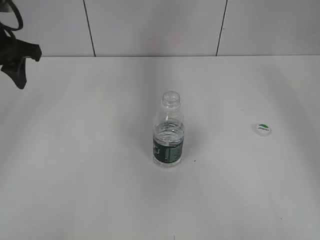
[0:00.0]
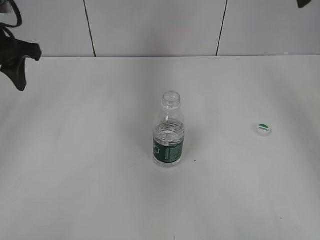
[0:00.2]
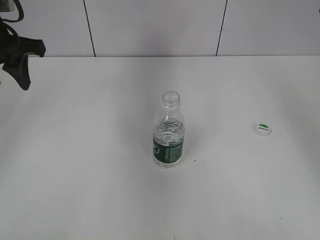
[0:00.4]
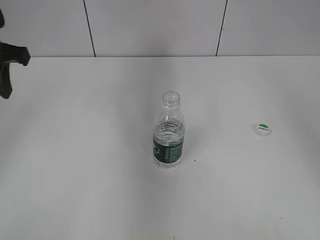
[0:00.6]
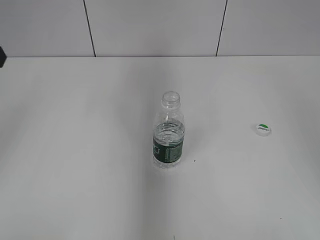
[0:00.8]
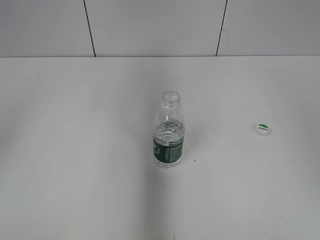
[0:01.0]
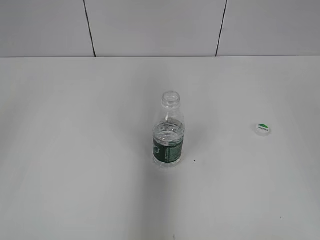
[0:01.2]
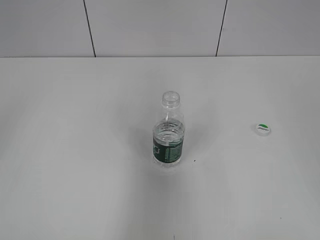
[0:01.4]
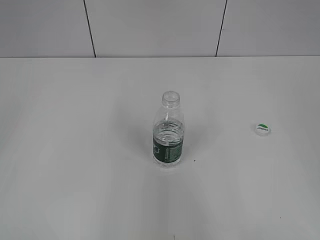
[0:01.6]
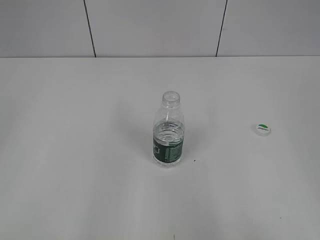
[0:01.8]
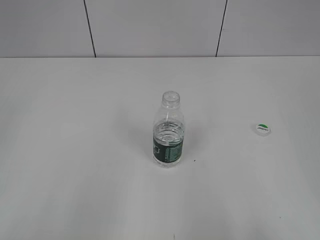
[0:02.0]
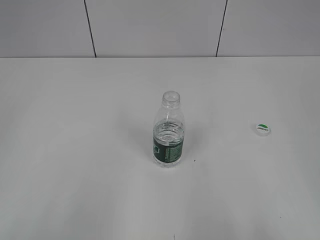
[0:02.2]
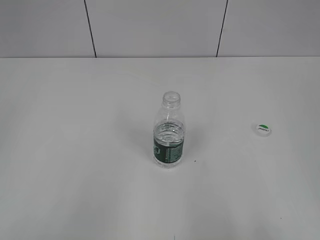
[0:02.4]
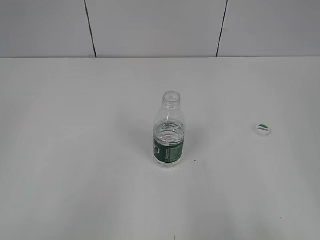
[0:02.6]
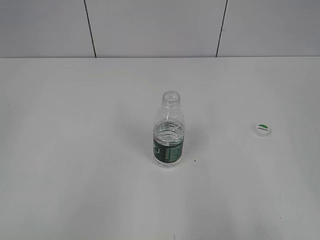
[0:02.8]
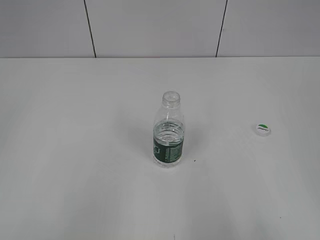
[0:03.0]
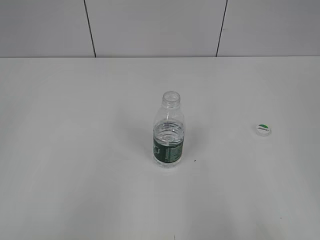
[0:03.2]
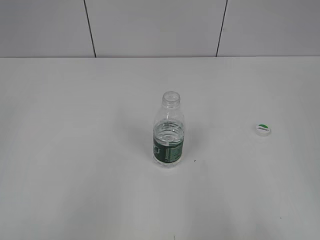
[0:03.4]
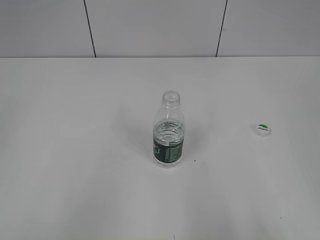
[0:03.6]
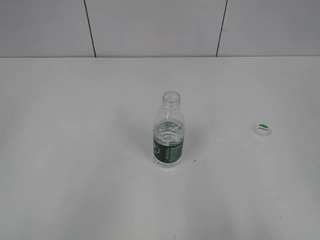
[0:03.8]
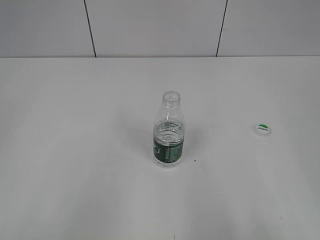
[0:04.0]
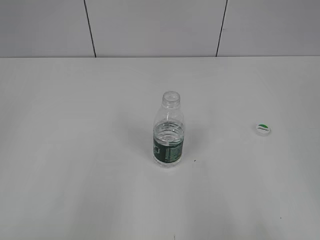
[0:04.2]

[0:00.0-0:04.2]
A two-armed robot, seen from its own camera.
0:00.0 to 0:01.4: The grippers both shift backward by some 30 cm. The left gripper closes.
0:01.4 to 0:02.8: The right gripper travels downward and backward by approximately 10 cm, while the left gripper goes roughly 15 cm backward and downward.

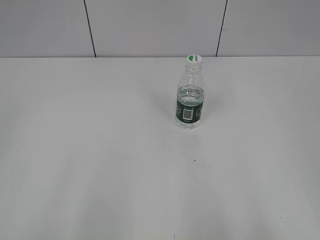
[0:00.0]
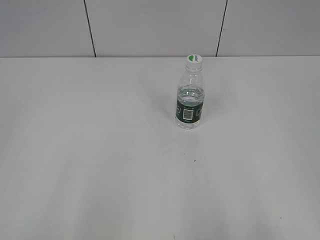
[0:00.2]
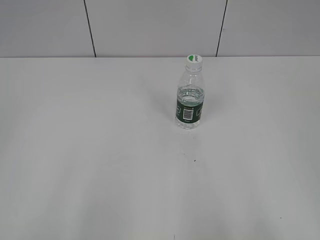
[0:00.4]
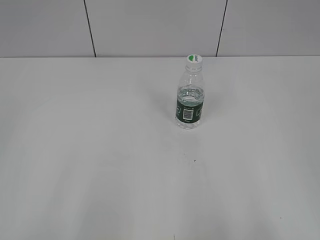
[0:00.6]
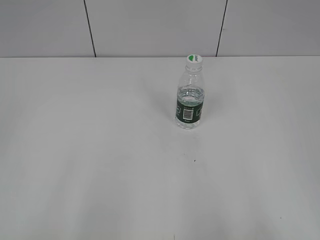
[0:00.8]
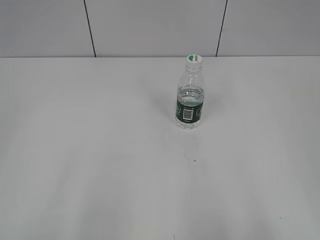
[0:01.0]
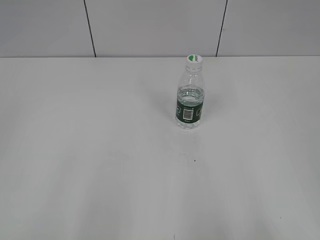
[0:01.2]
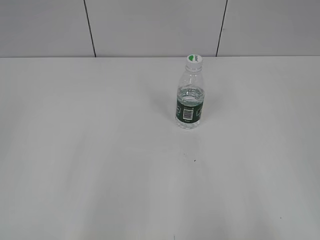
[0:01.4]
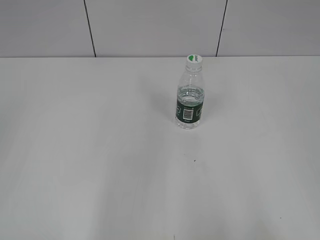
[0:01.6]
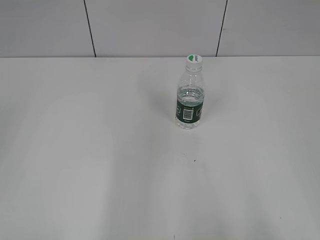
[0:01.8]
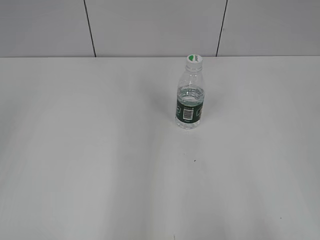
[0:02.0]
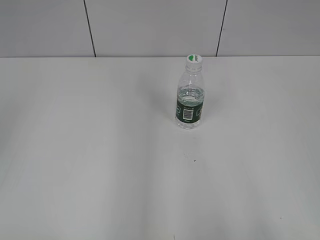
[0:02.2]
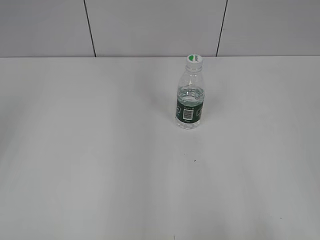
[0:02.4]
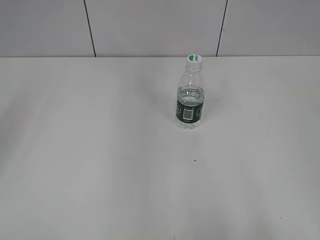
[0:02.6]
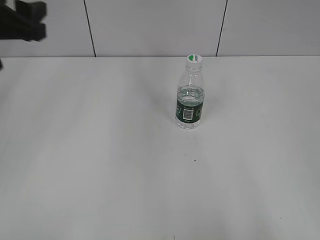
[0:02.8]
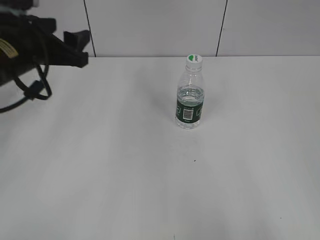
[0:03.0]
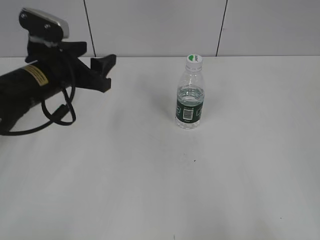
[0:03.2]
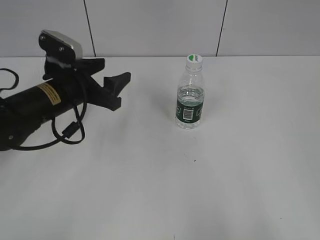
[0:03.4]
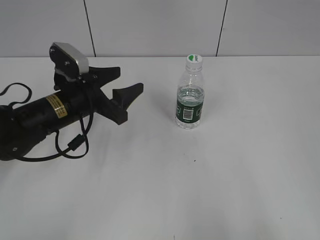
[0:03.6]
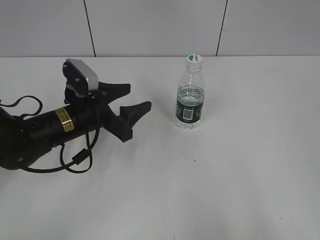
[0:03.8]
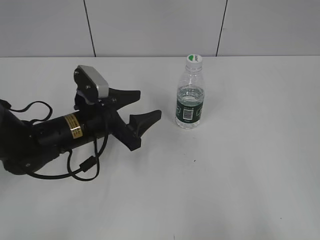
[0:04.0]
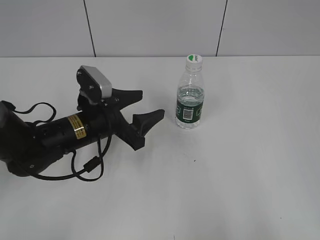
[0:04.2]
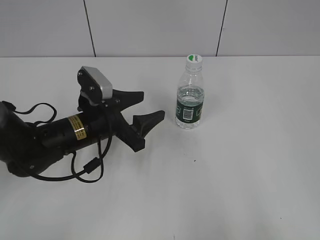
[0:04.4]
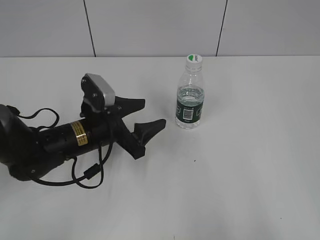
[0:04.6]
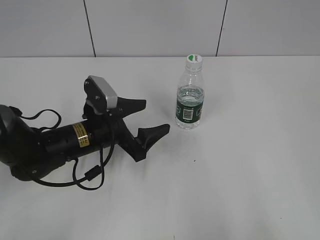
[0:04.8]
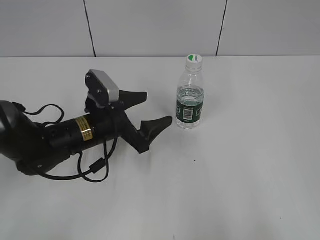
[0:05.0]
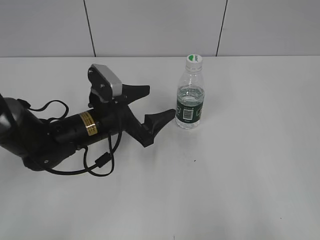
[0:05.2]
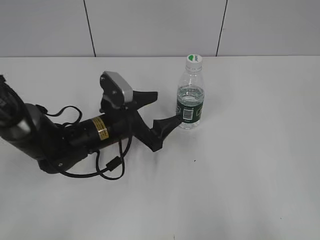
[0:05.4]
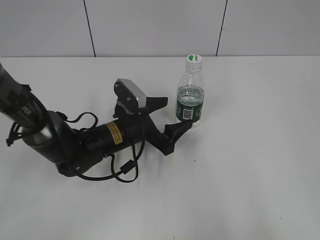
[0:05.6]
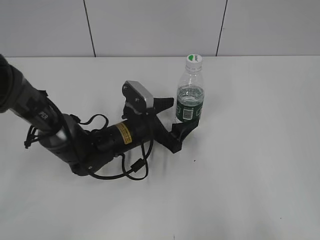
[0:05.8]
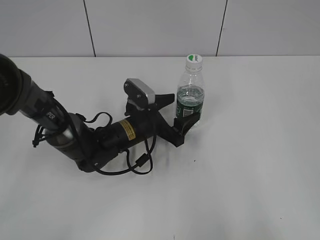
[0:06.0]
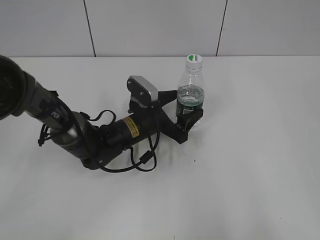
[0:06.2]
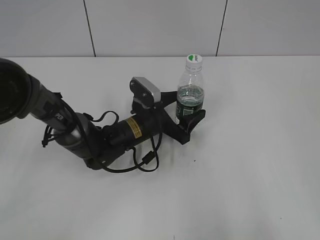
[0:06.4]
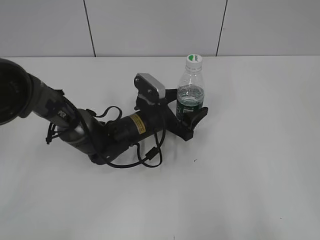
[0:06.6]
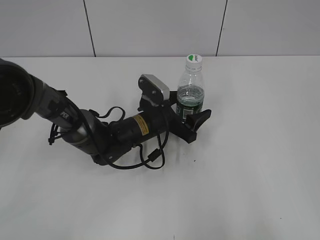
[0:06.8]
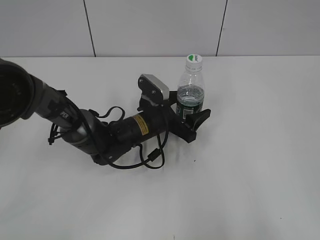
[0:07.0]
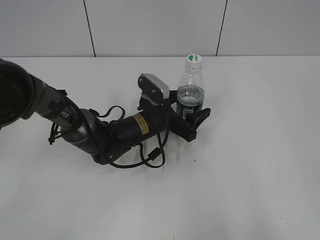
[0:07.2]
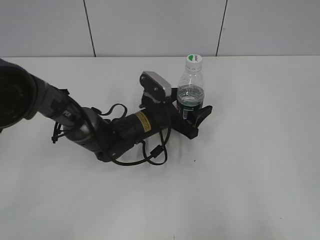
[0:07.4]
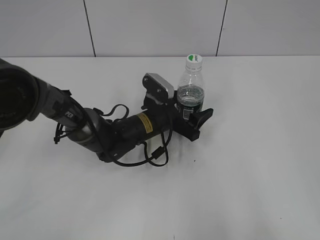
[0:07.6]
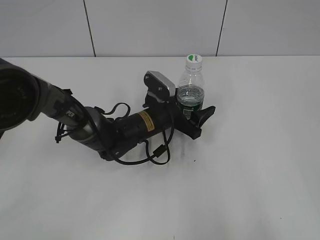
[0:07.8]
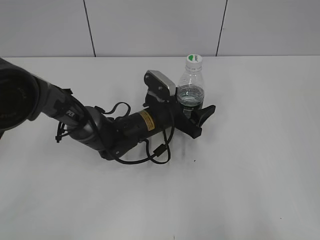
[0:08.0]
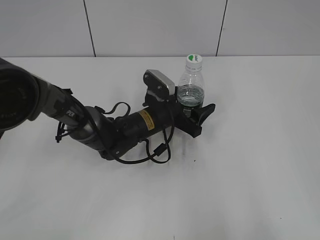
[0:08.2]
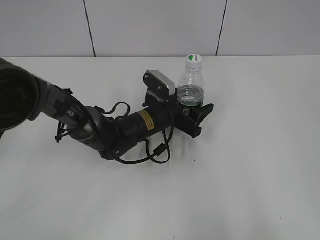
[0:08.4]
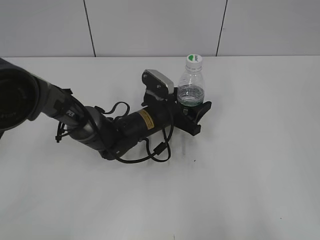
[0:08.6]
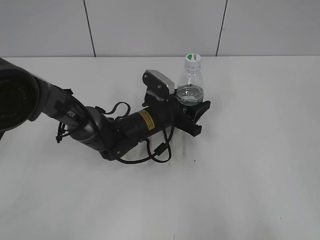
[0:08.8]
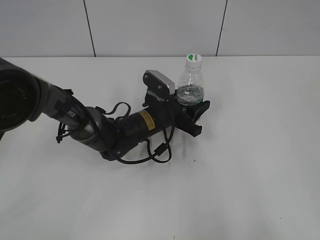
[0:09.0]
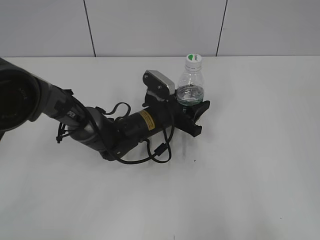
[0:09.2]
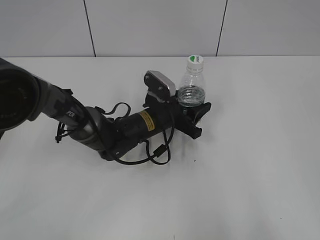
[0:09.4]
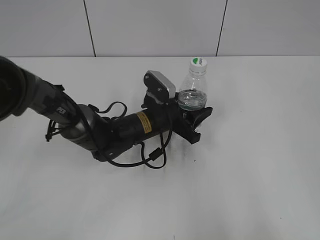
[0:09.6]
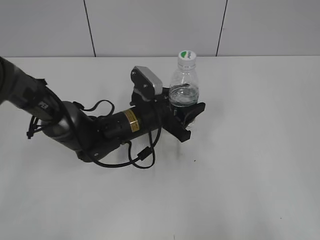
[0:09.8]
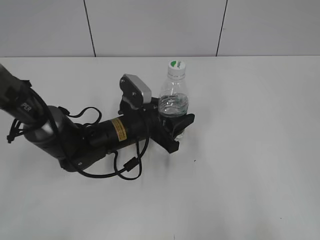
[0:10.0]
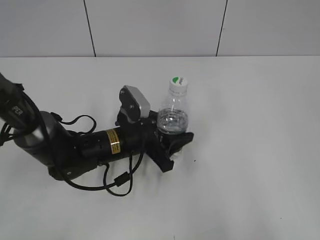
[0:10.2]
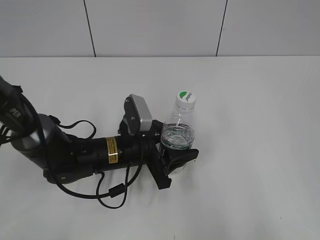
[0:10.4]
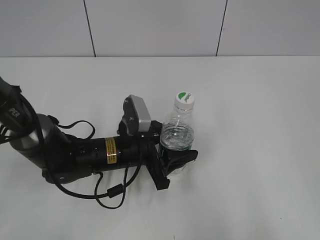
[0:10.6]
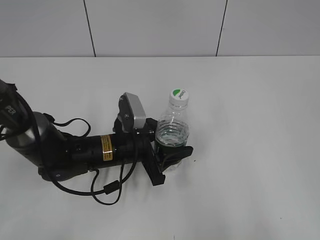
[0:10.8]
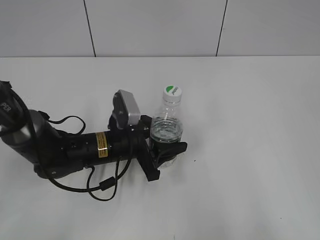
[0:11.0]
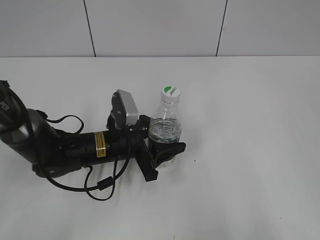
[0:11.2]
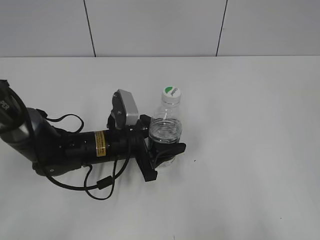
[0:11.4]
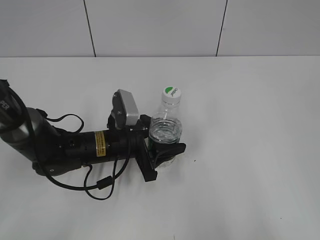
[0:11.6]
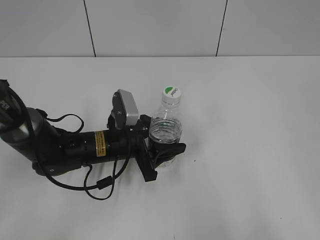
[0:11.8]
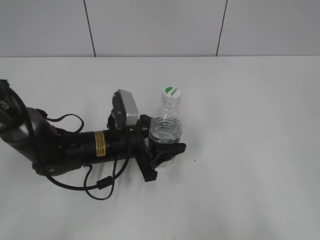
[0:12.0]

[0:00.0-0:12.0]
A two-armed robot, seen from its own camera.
Step, 0:00.0 to 0:09.2: Grasp the bottle and move it to the center of the table with the left gripper.
0:01.6 to 0:03.0: The left gripper moves forward, approximately 30 cm.
0:03.0 to 0:04.4: The left gripper is displaced downward and to the right by approximately 15 cm.
0:04.4 to 0:06.0: The left gripper moves to the right and downward, some 10 cm, and opens up.
0:06.0 to 0:07.6: There are only small adjustments of the grippers.
0:07.6 to 0:09.0: The left gripper closes.
0:09.0 to 0:10.4: The left gripper heads backward and to the left, covering some 10 cm.
0:10.4 to 0:12.0: The grippers move only a little.

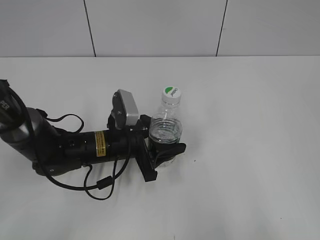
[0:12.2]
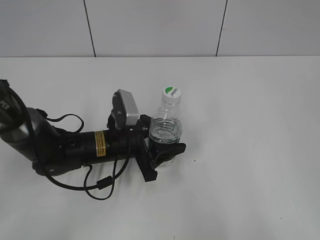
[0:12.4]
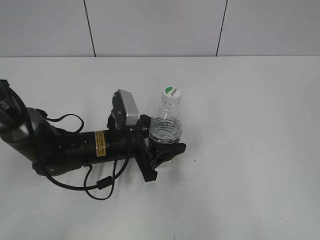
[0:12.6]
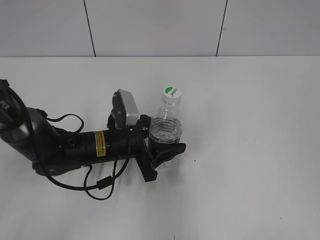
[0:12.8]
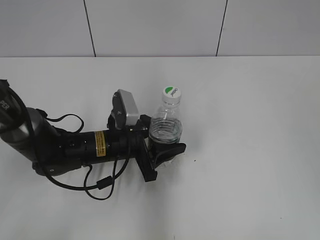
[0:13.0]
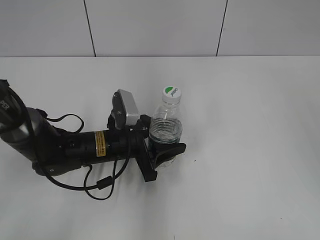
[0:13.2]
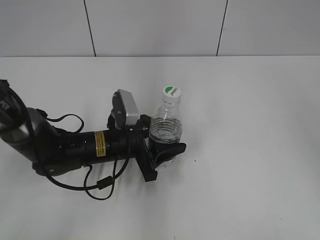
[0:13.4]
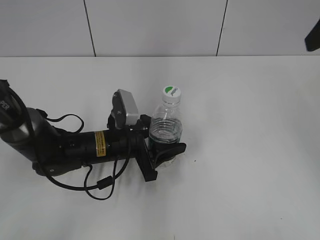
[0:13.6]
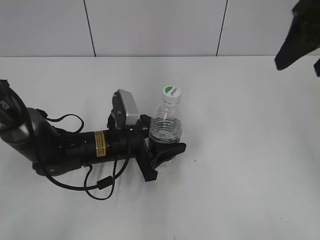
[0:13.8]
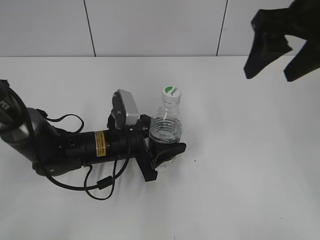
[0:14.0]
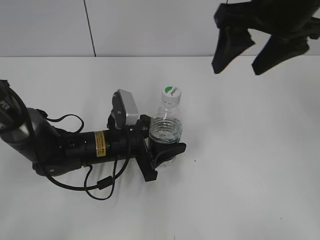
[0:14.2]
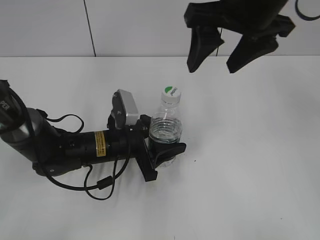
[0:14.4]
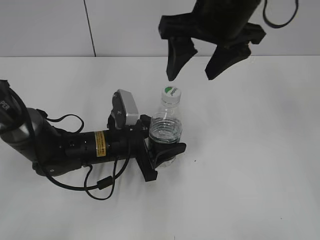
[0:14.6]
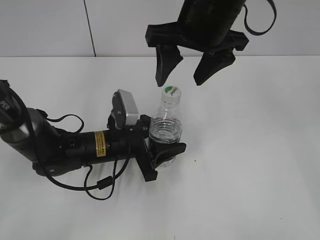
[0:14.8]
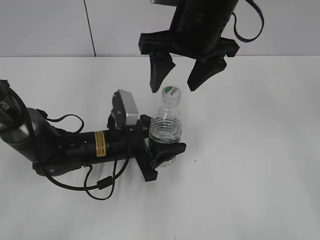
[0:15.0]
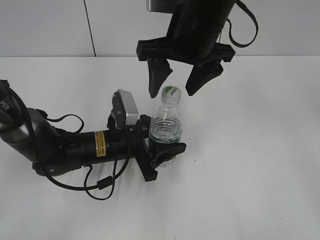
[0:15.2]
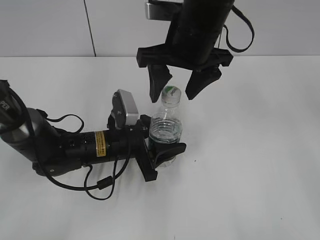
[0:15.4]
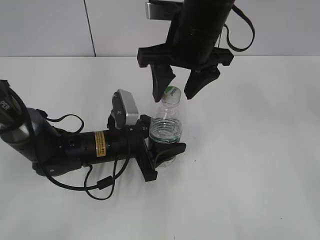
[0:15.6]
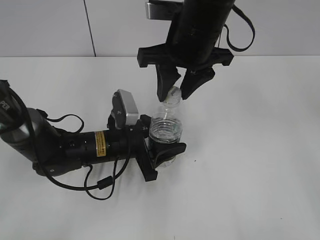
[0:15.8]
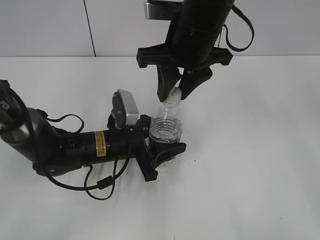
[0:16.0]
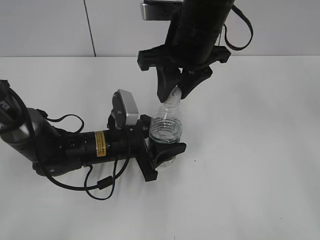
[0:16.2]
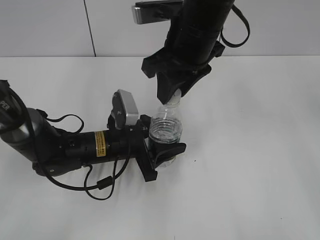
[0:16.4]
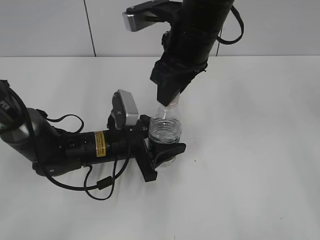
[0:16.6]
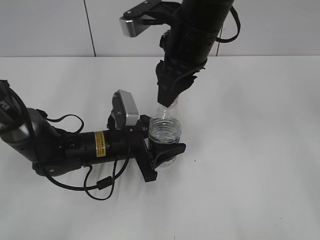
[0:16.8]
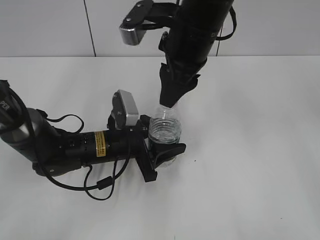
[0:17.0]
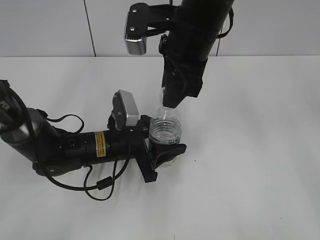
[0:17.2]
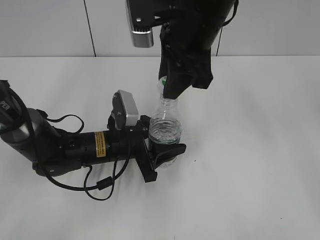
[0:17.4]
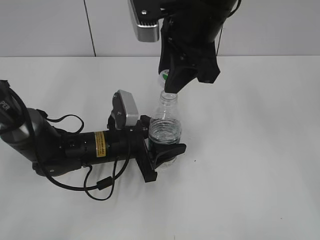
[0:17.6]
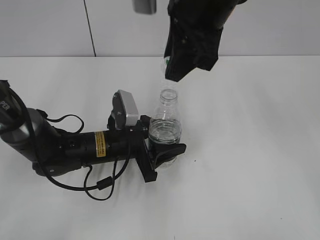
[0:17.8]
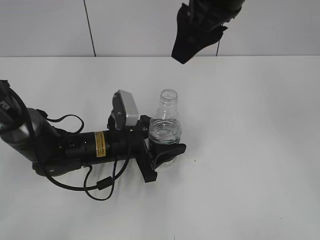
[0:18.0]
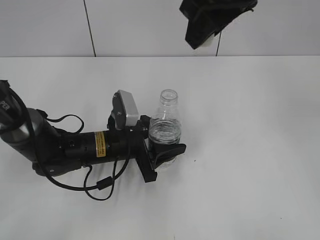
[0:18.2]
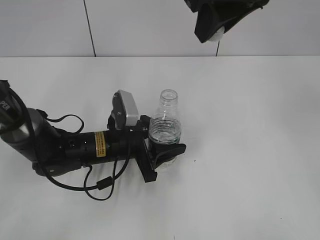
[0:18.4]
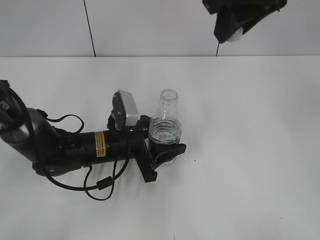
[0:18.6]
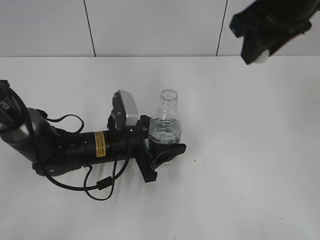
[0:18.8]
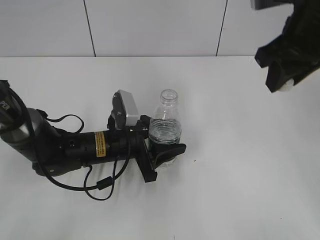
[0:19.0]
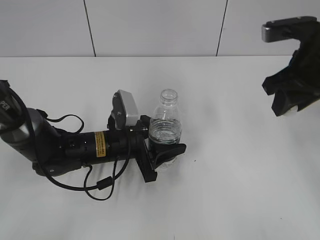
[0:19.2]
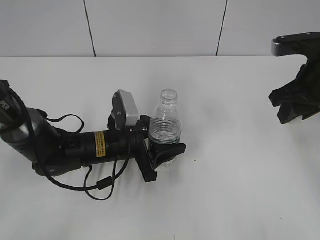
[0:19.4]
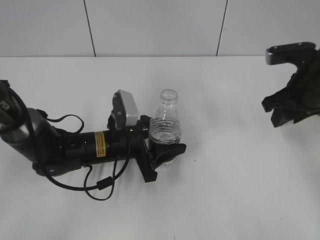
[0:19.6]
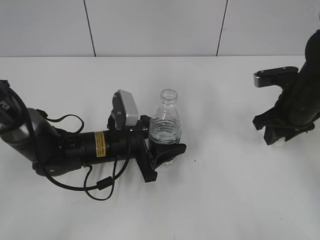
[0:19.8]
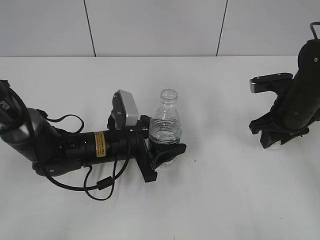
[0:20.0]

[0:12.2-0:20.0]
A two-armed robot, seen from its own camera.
Step, 0:13.6 to 0:17.6: Unscrew the bottle cap with the right gripper while holding the bottle with the left gripper.
0:12.2 to 0:13.8: The right gripper shifts approximately 30 cm forward.
0:13.8 to 0:15.4: The right gripper shifts some 20 cm to the left.
0:15.4 to 0:16.8: The right gripper closes.
0:16.8 to 0:18.4: The right gripper shifts approximately 10 cm upward and to the right.
0:18.4 to 0:20.0: The right gripper moves downward and to the right, about 30 cm.
